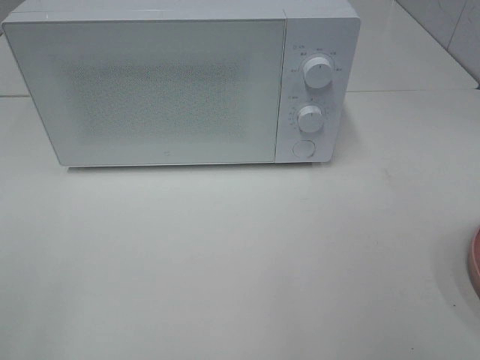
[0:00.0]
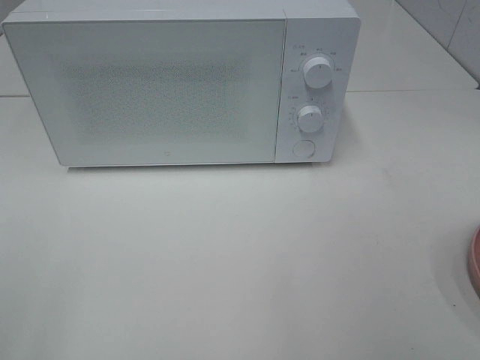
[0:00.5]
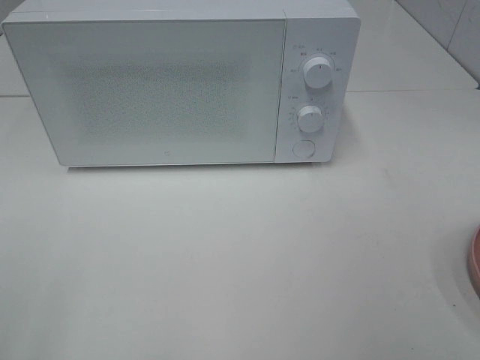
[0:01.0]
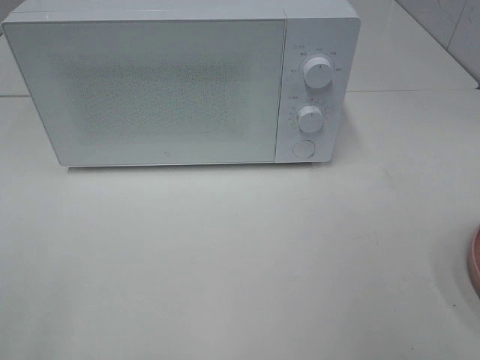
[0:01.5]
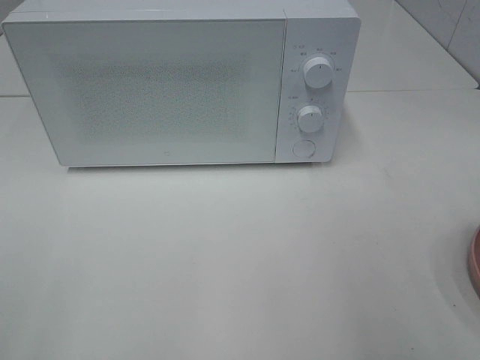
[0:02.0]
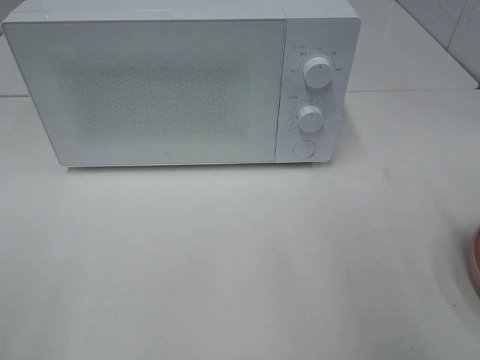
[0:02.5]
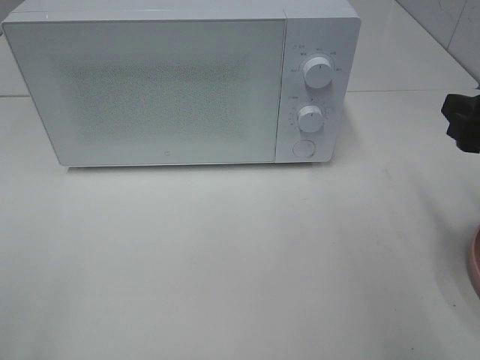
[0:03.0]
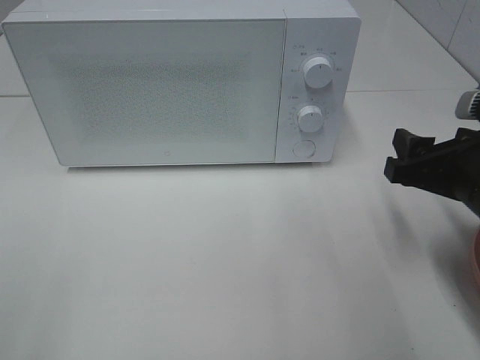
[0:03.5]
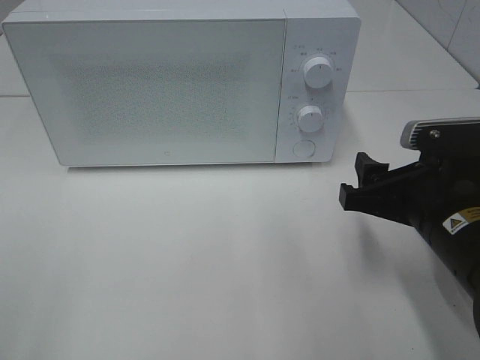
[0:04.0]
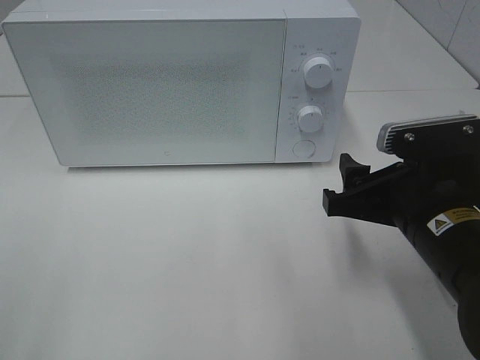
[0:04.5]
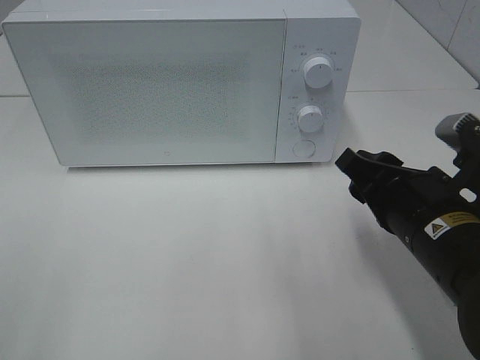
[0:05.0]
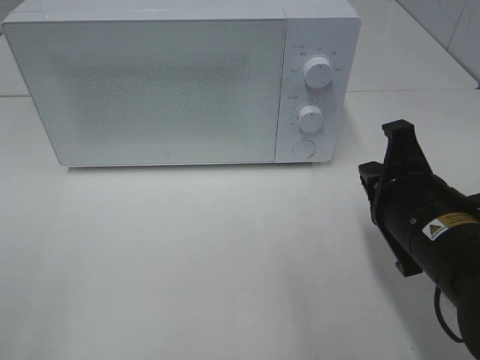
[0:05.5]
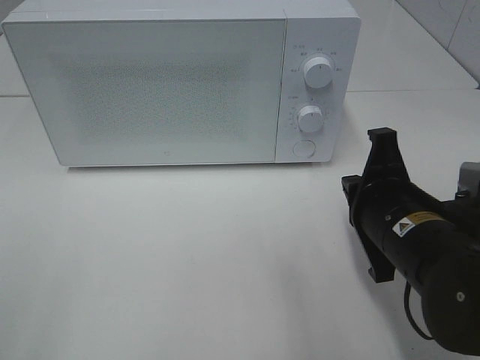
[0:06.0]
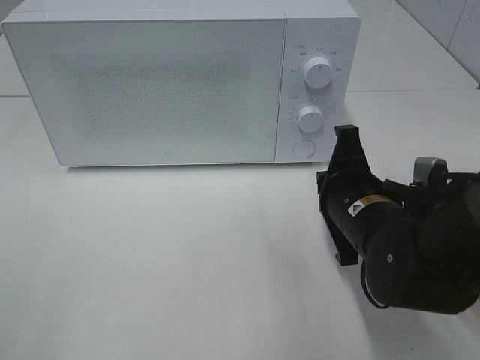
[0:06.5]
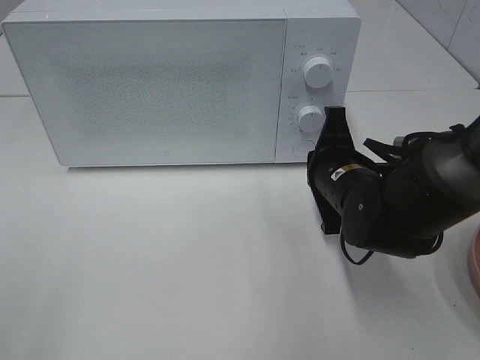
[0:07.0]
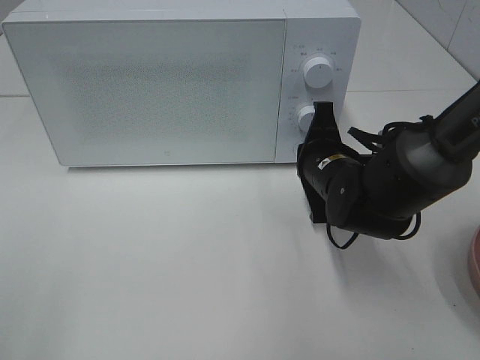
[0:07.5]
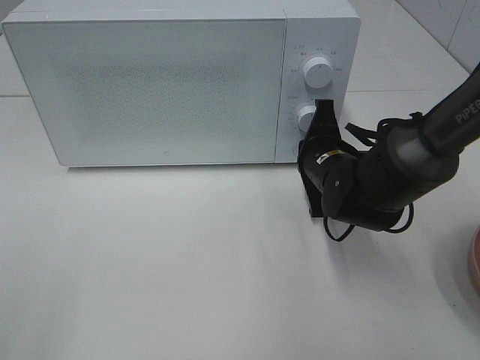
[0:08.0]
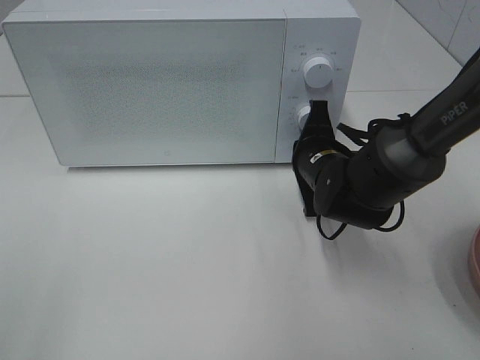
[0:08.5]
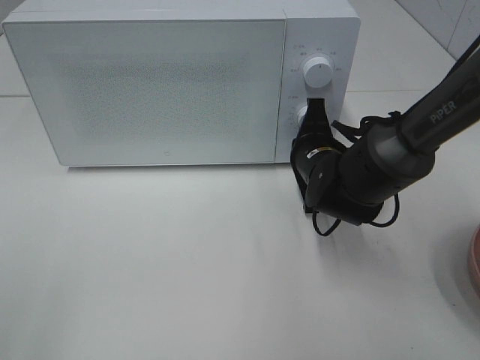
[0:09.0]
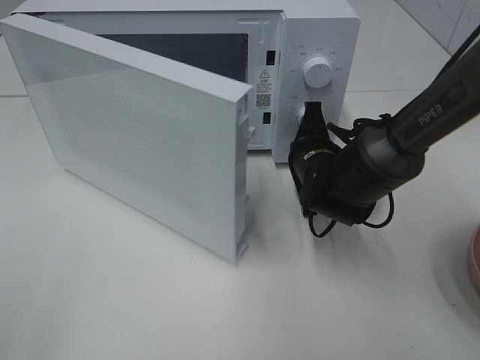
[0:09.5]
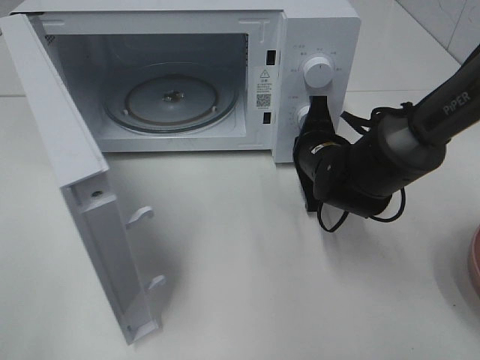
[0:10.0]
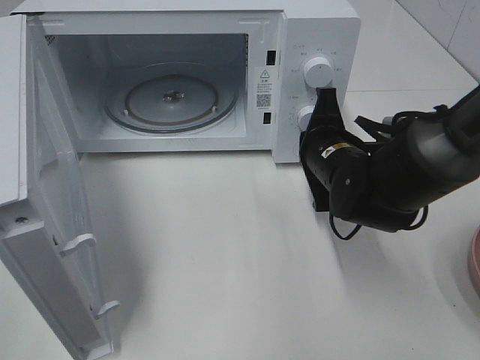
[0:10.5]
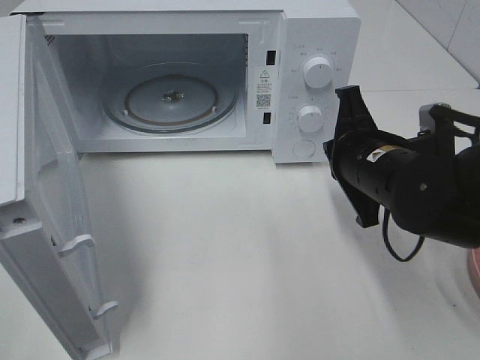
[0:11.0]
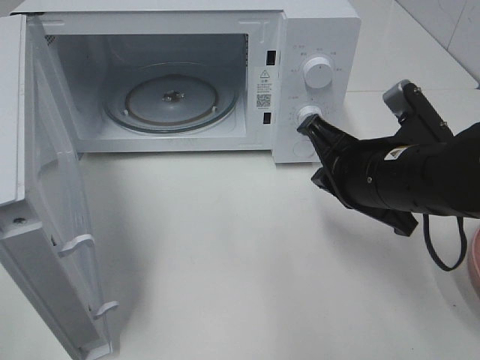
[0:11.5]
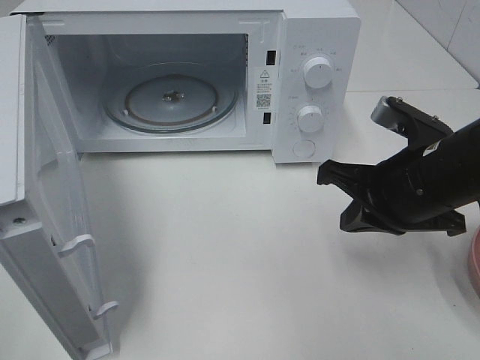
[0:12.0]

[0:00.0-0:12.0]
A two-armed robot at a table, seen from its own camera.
Task of the whole recording: Heat the burger.
Step, 0.0 to 10.5 s: Right hand: press the switch.
2.0 to 4.0 s: The right gripper shifts roughly 20 cm downward, to the left and forward.
4.0 to 6.0 s: The right gripper closes up.
6.0 to 8.0 s: The right gripper moves forward, approximately 15 cm.
10.0 to 12.0 s: The right gripper heads backward, upward and to the right, covering about 15 cm.

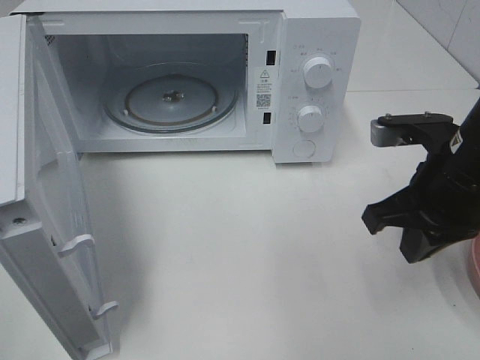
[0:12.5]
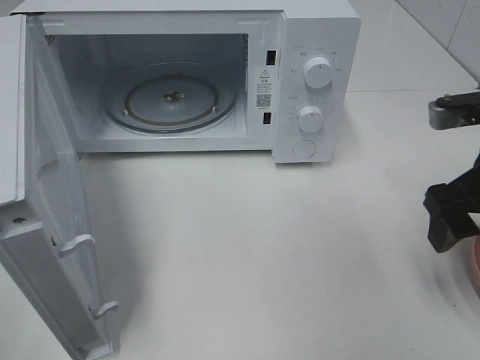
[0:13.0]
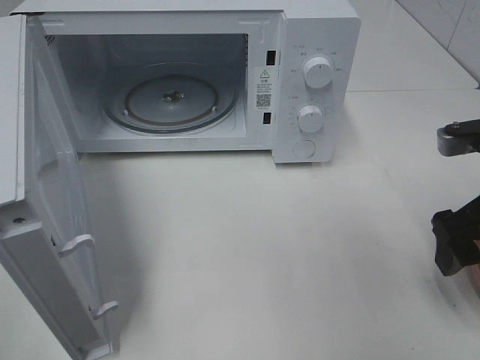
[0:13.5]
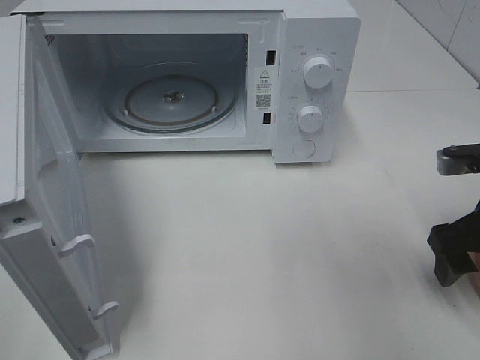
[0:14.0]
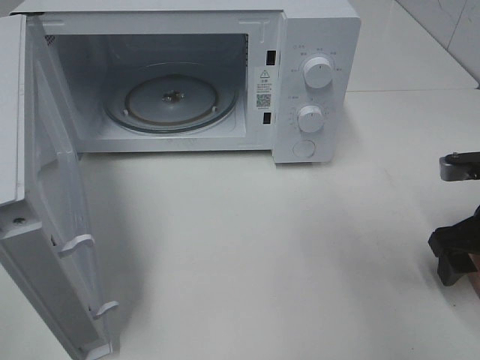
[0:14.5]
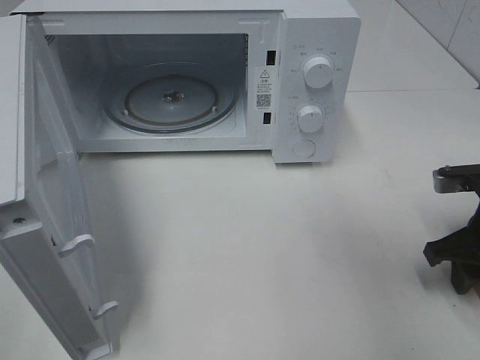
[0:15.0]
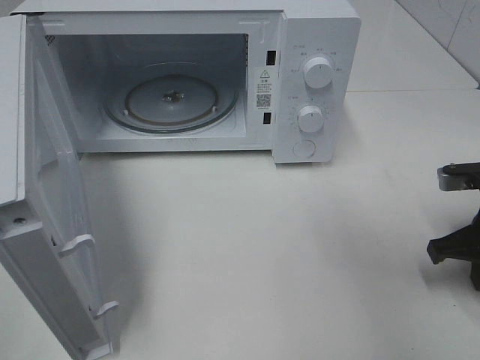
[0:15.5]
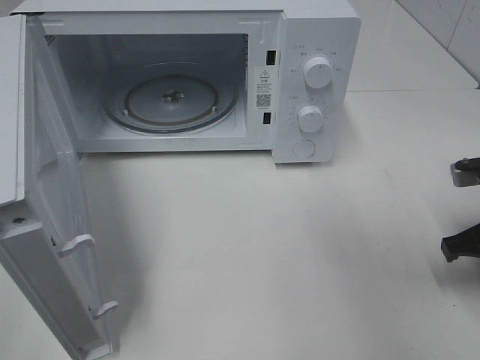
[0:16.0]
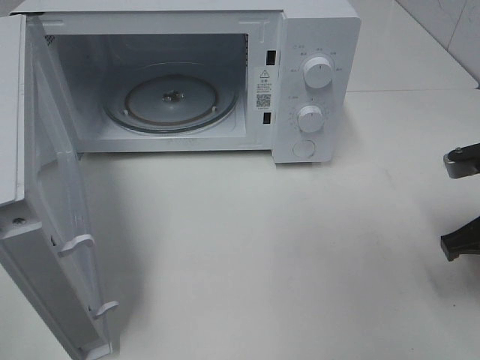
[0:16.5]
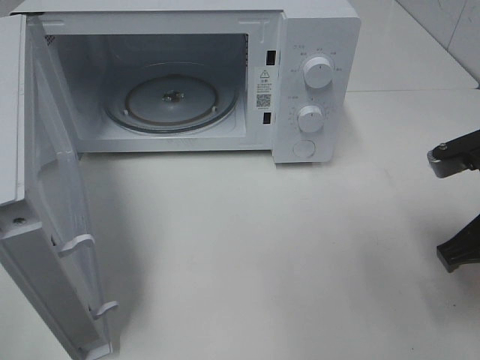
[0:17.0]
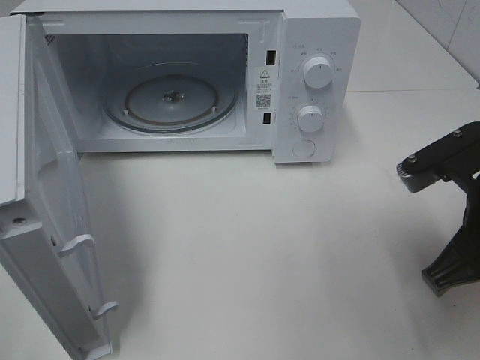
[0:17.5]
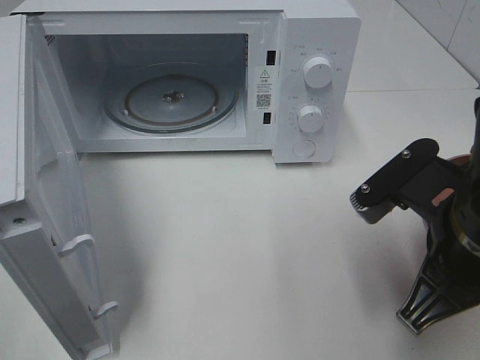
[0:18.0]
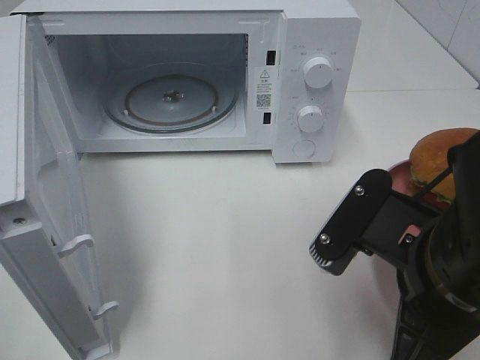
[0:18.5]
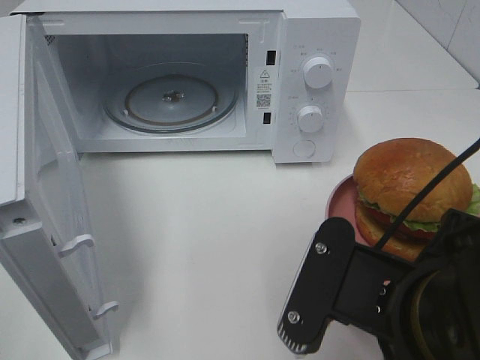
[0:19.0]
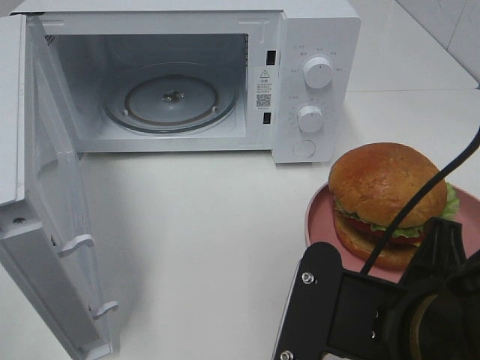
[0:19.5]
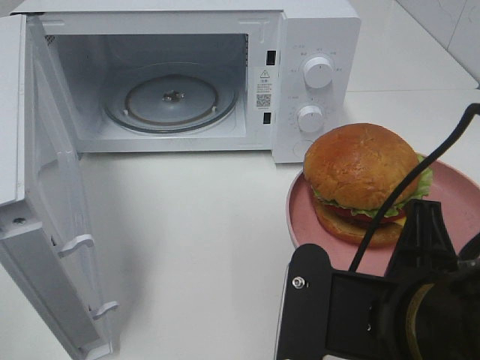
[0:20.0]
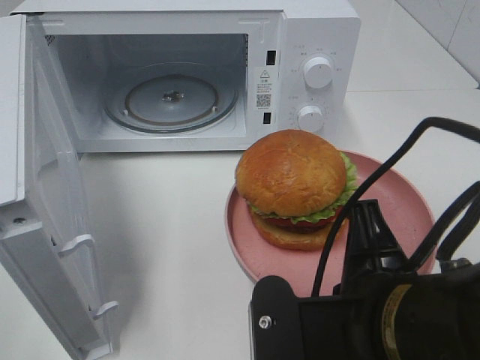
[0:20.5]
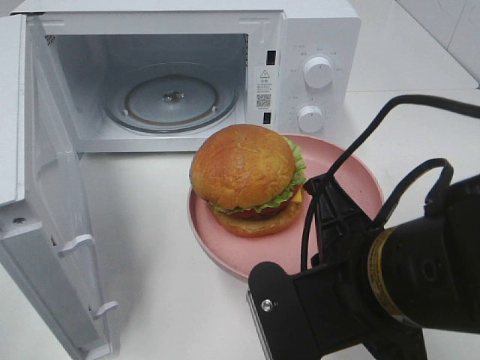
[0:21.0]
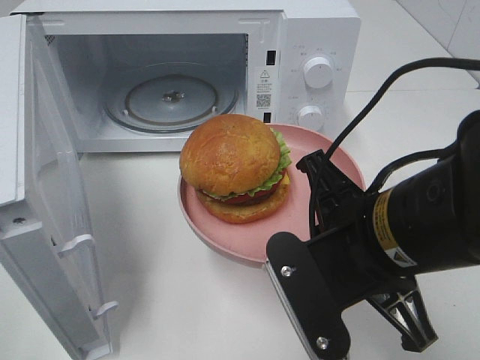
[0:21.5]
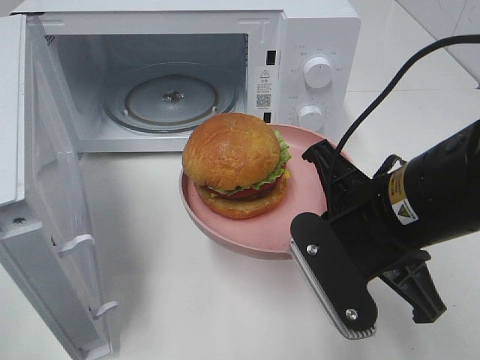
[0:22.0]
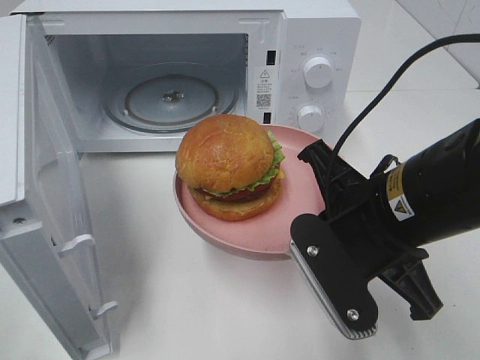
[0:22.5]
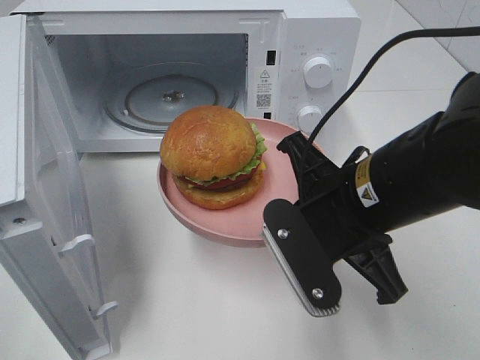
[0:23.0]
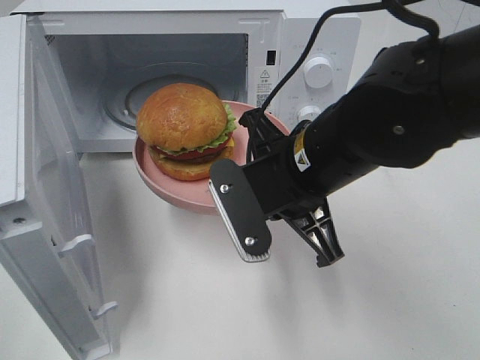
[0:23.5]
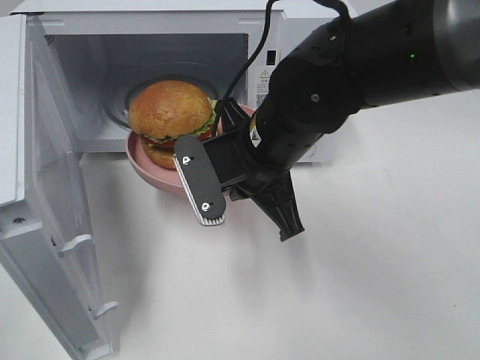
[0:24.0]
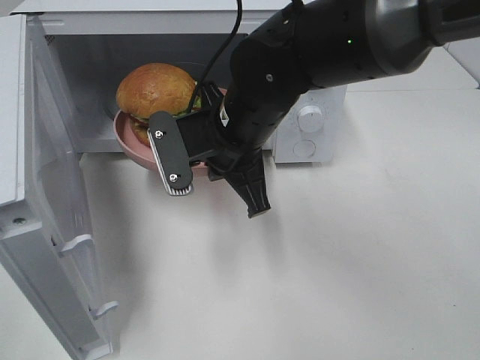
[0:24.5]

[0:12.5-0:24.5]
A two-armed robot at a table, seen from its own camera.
Task of the whole recording: Heat the burger.
Step, 12.5 to 15.5 s: Right hand: grab the plate with the hamburger.
12.5 to 14.5 s: The right gripper goes approximately 10 cm to the right and downward, and opens up.
14.5 to 16.5 s: The right gripper closes up.
16.5 to 18.5 s: The right gripper shifts approximately 15 cm to the left and backward.
18.5 to 20.5 s: The right gripper ends up roughly 5 cm from where it was.
20.5 to 22.5 s: The right gripper goes some 10 cm forward.
22.5 to 24.5 s: The right gripper moves forward and to the left, roughly 15 cm.

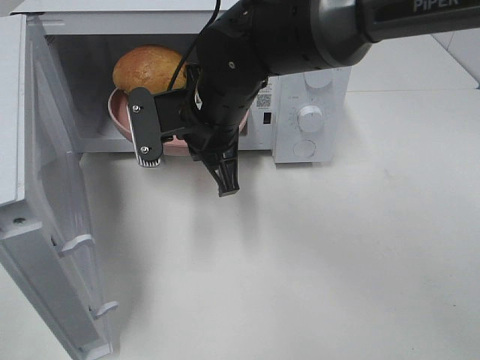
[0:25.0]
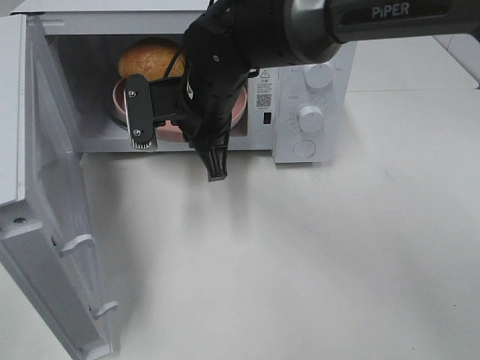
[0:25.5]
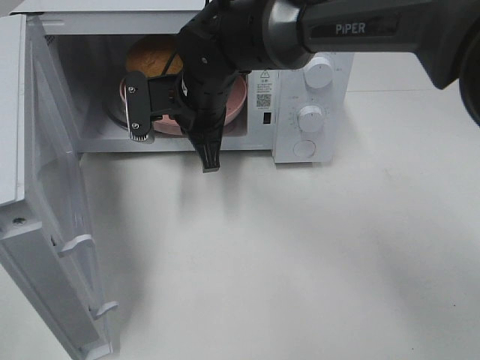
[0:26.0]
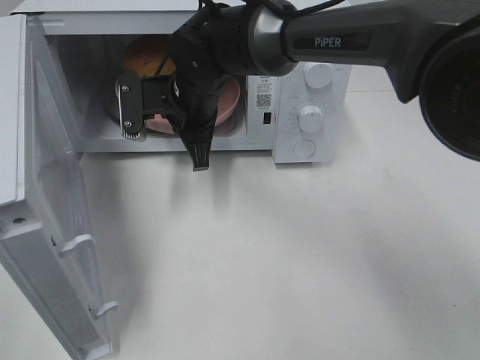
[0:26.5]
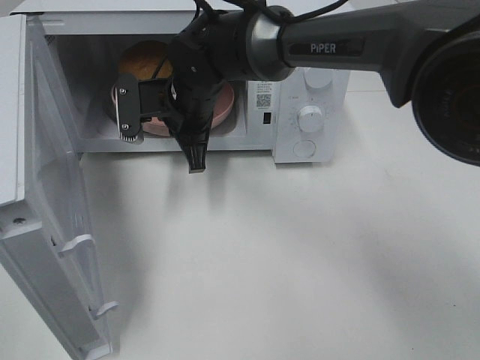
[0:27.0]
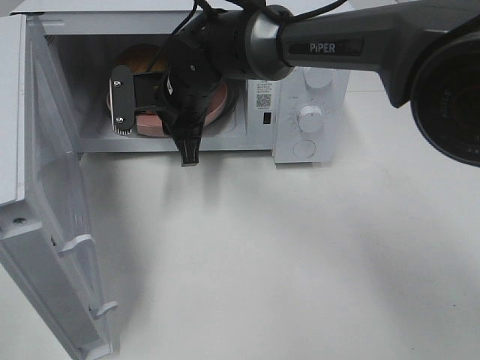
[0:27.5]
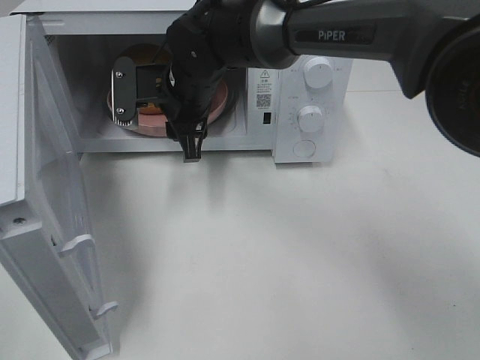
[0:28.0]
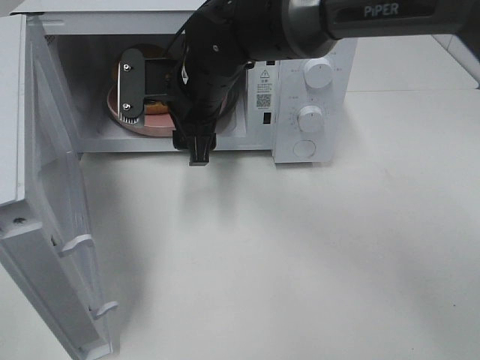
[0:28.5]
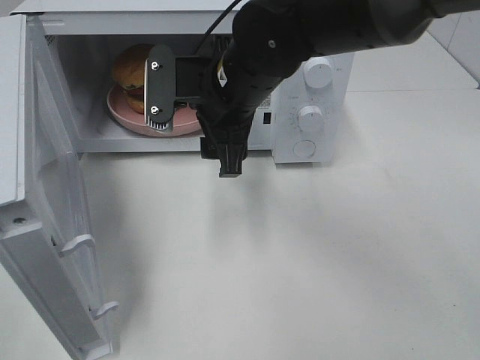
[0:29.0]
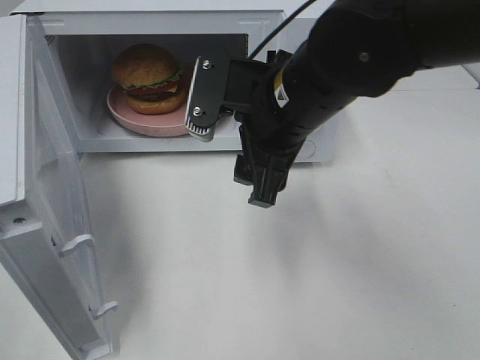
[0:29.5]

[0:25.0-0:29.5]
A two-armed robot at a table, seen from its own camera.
Task of the whole recording: Heat the burger.
Step, 25.0 to 27.5 s: Right hand: place the plate in the microwave.
25.0 to 27.0 s: The right gripper is displaced forward by some 5 cm.
27.0 to 29.5 s: The right gripper heads backward, to the right and upward, covering approximately 20 cm, and opens.
